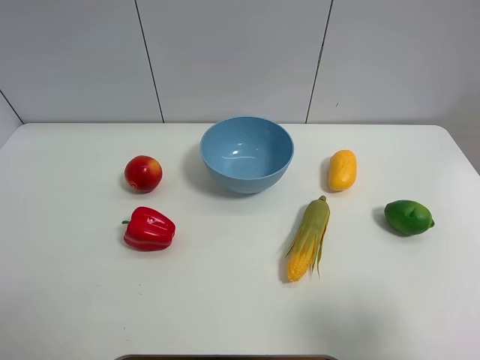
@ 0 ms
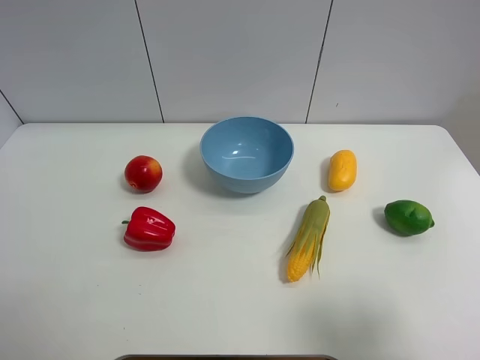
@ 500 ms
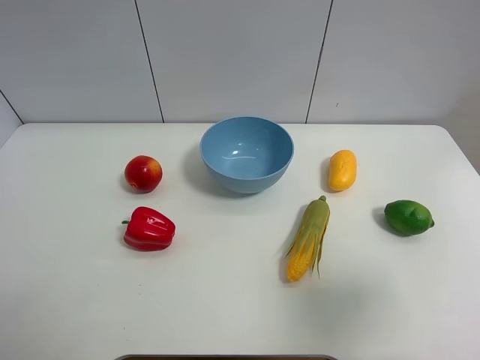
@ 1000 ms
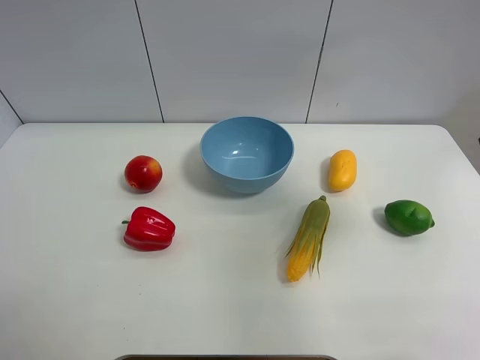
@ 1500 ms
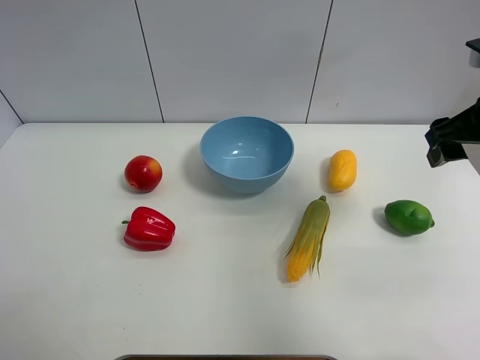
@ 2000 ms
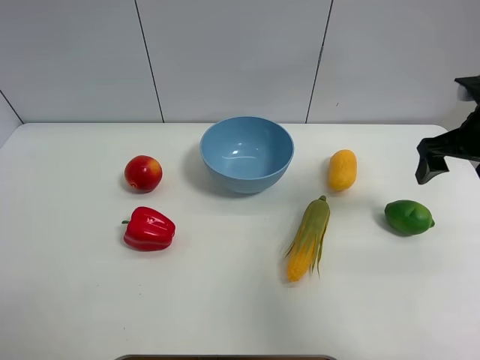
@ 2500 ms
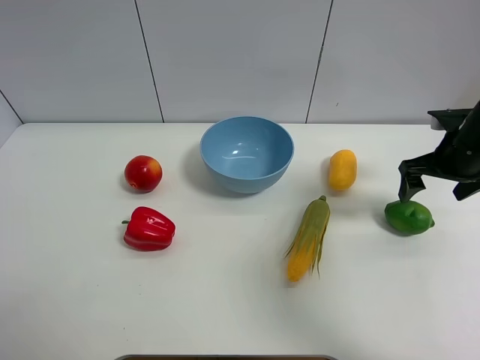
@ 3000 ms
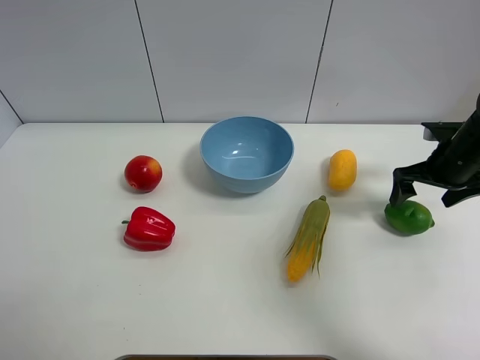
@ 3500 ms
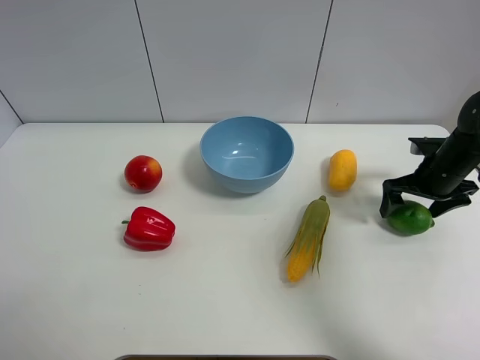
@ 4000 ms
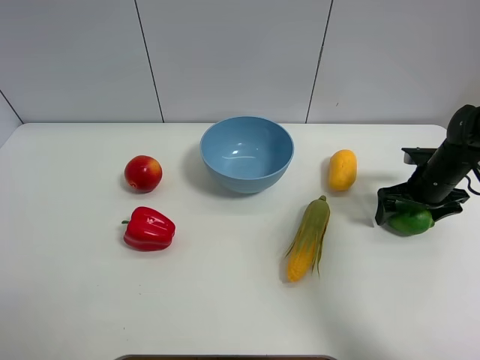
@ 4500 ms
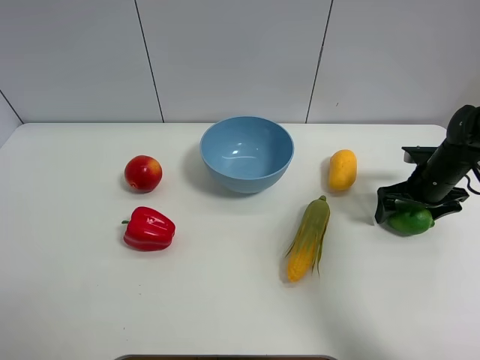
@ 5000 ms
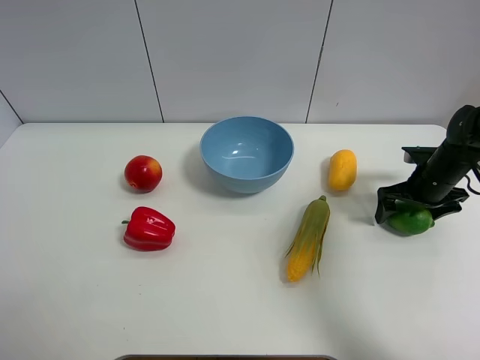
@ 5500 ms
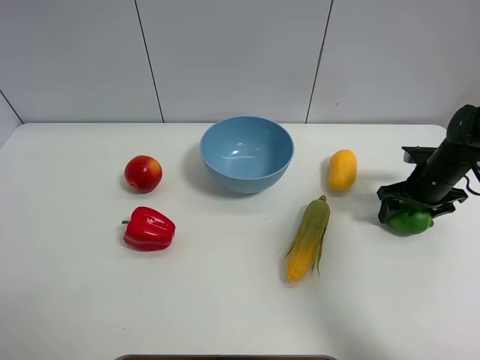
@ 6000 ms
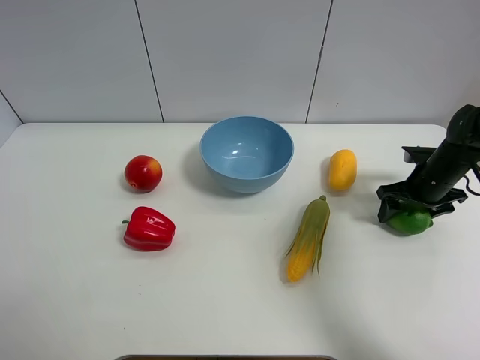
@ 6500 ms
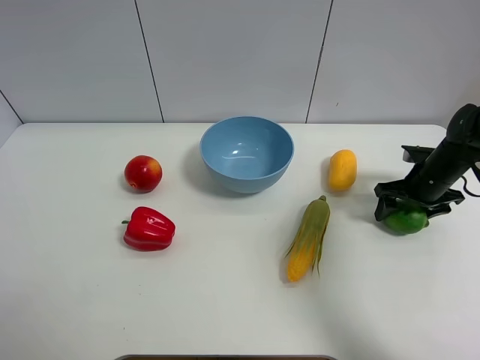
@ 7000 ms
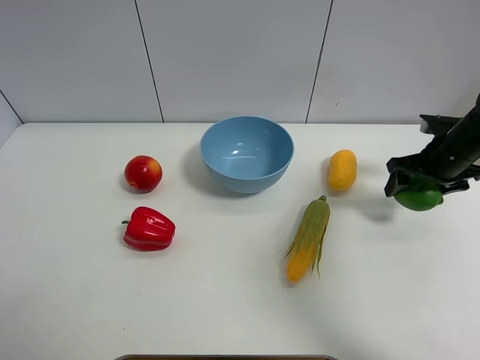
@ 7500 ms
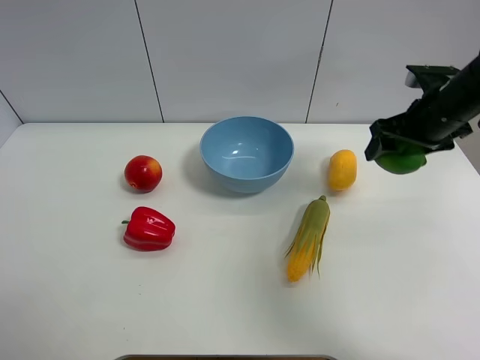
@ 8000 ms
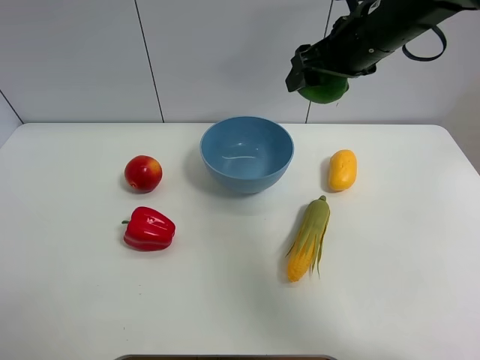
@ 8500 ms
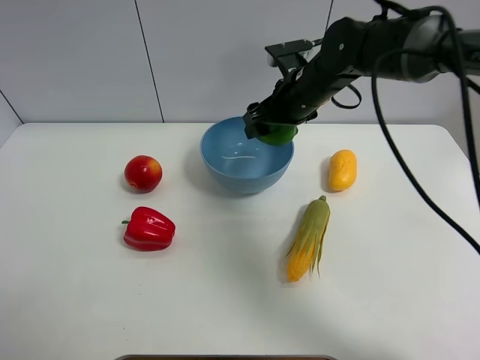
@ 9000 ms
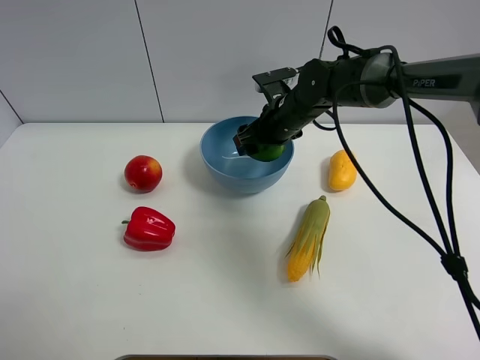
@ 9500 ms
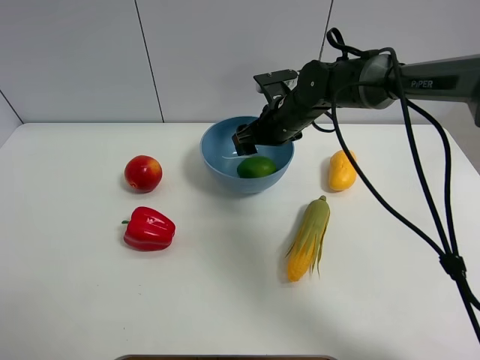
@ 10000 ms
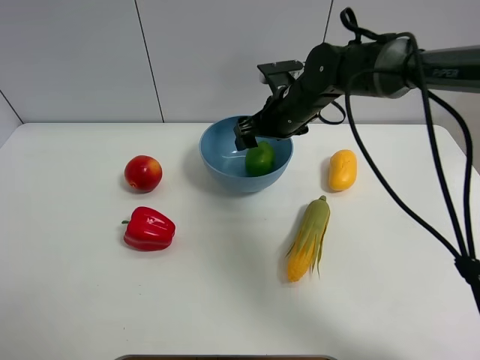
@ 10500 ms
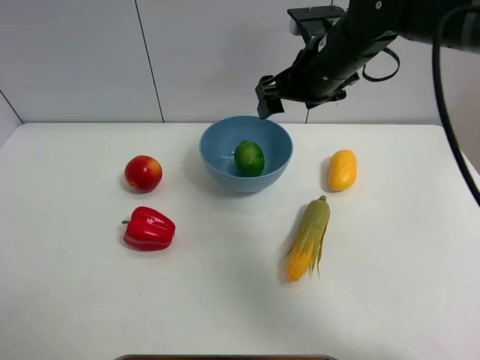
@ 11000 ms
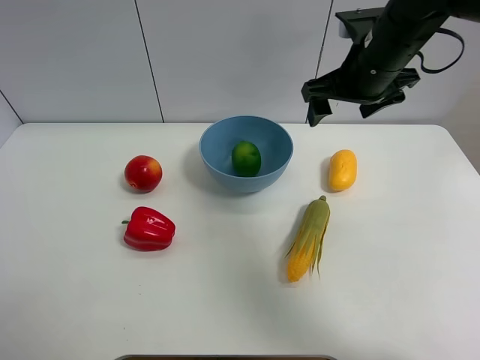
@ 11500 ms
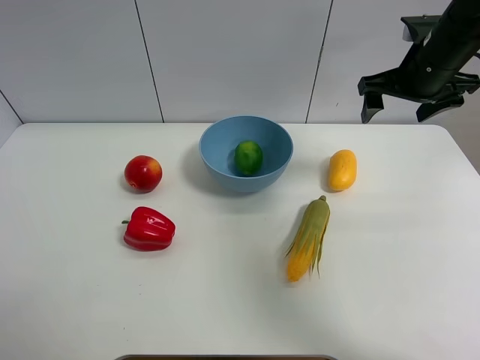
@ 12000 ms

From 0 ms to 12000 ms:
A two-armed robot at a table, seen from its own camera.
Task of the whole recording: Put the three fruits on the table into a bowl.
Step, from 0 ms to 6000 ms: Grasp the green lemon with right gripper.
Step, from 6500 ms to 10000 ms: Place the green lemon in the blue bowl with right gripper.
From 0 ms to 2000 ms: The right gripper moves forward, approximately 25 cm.
From 2000 ms to 4000 ms: The right gripper heads downward and forward, covering approximately 20 cm, and opens its fingers.
From 4000 ms to 6000 ms: The right gripper closes up.
From 6000 ms to 8000 ms: The right gripper heads upward and to the left, covering roughly 15 cm.
From 8000 ms to 10000 ms: The right gripper shifts approximately 20 cm to the left.
From 10000 ms to 12000 ms: The right gripper travels to the right and upward by some 20 cm.

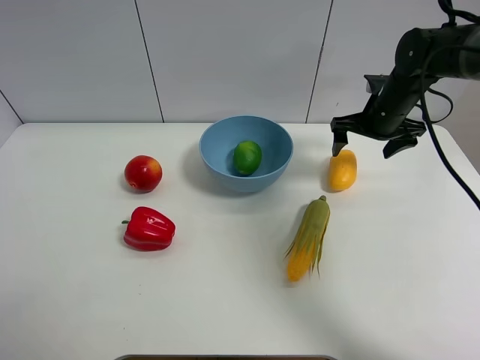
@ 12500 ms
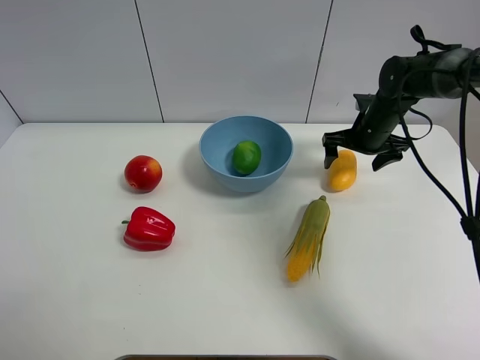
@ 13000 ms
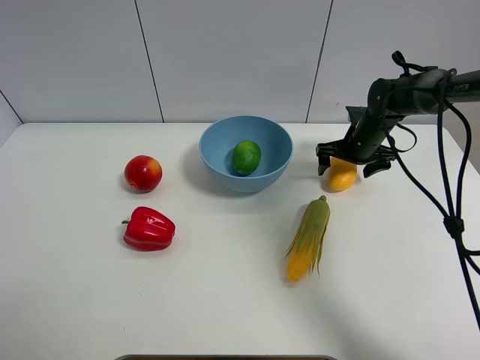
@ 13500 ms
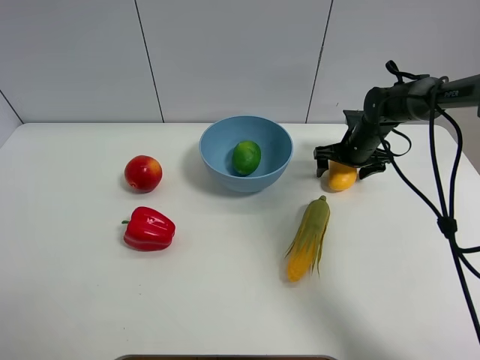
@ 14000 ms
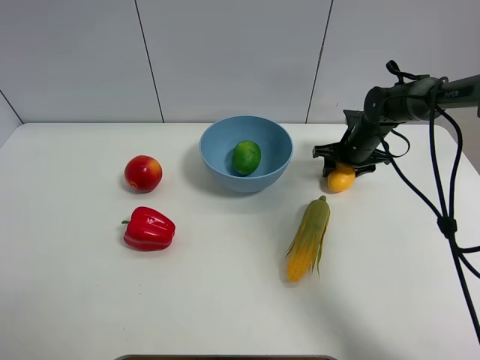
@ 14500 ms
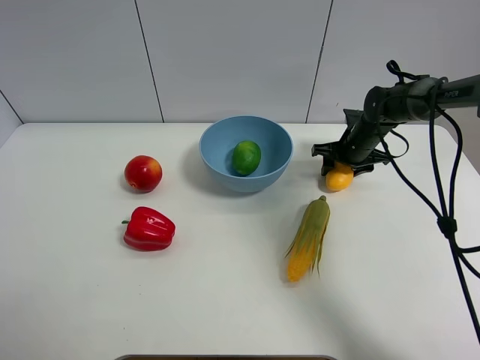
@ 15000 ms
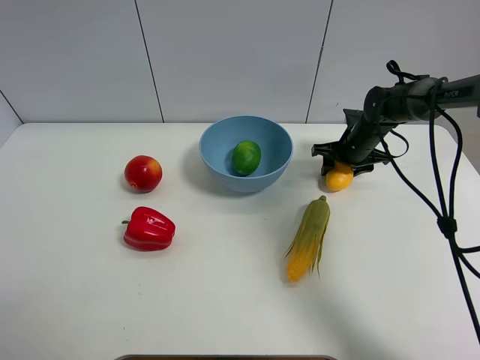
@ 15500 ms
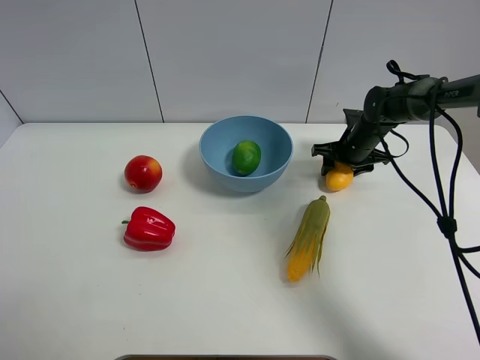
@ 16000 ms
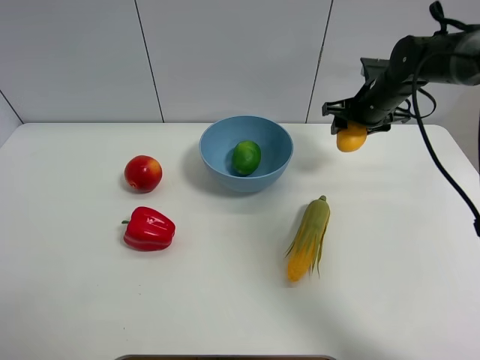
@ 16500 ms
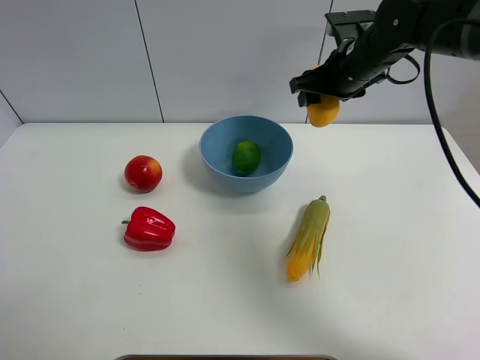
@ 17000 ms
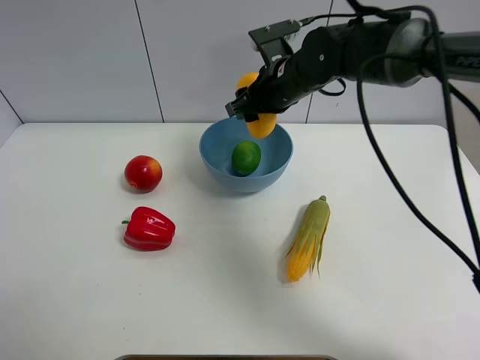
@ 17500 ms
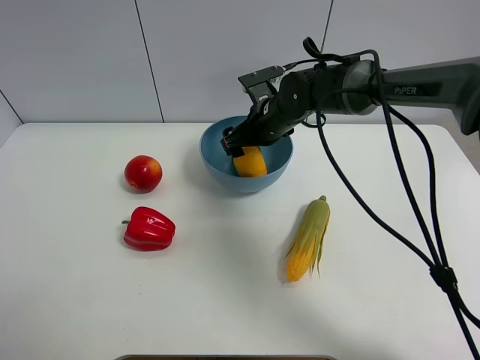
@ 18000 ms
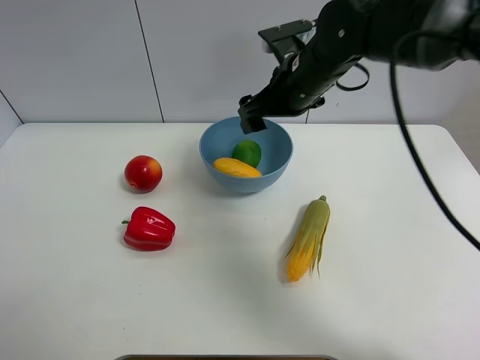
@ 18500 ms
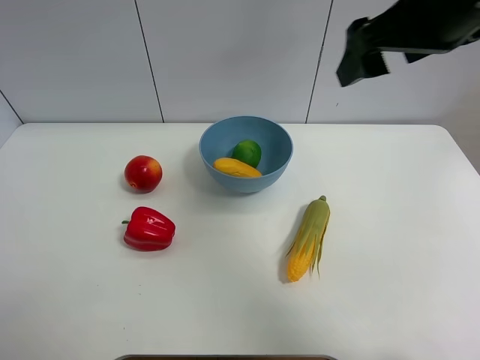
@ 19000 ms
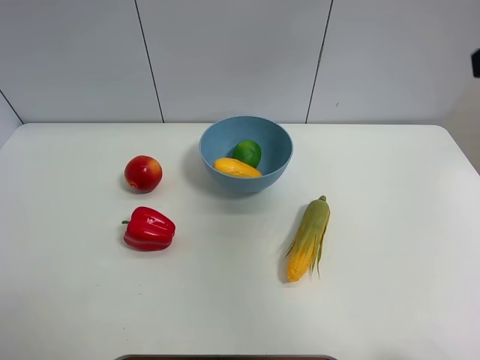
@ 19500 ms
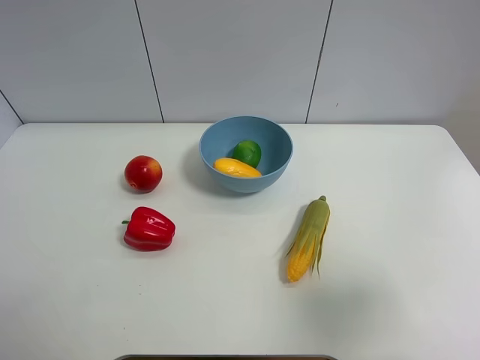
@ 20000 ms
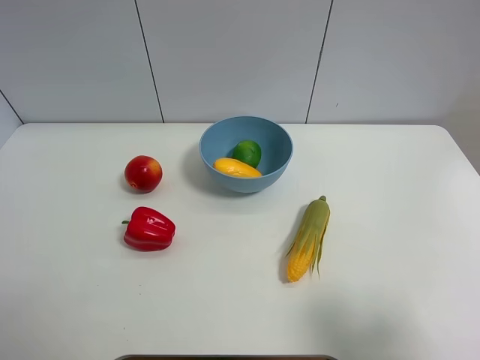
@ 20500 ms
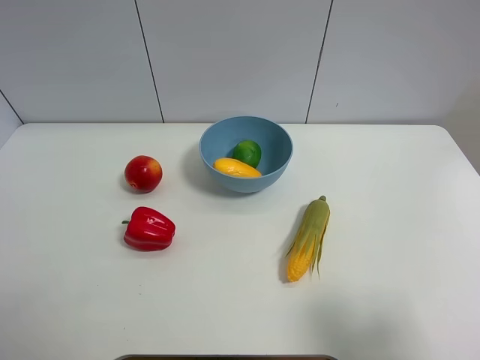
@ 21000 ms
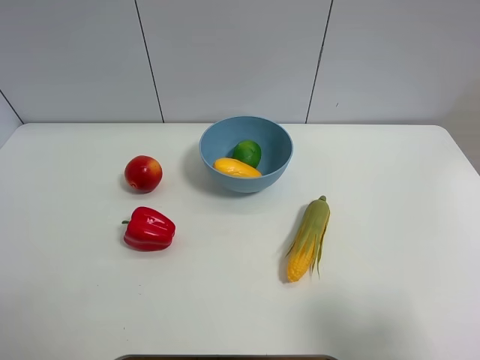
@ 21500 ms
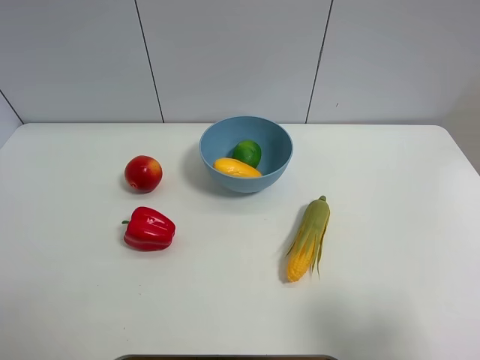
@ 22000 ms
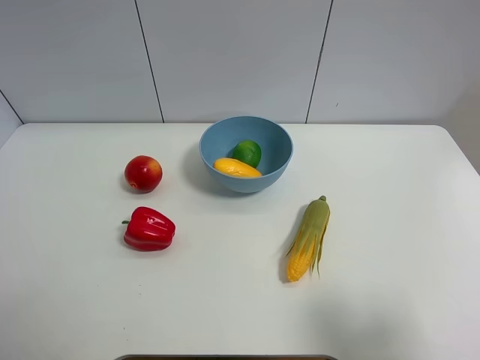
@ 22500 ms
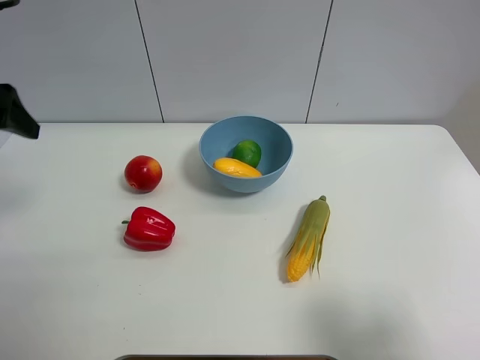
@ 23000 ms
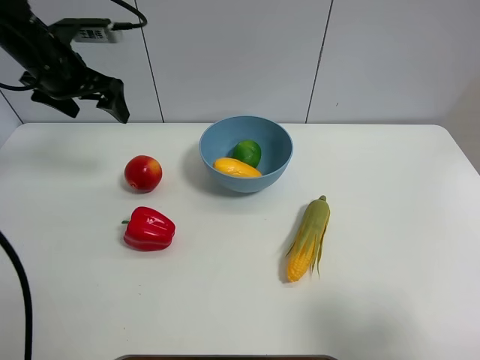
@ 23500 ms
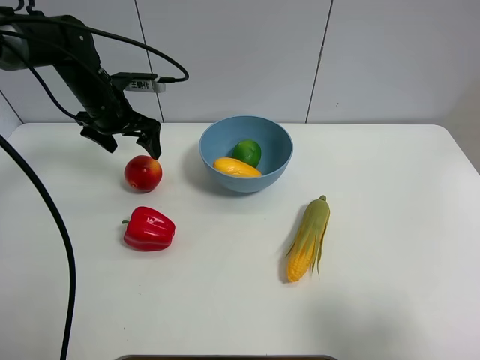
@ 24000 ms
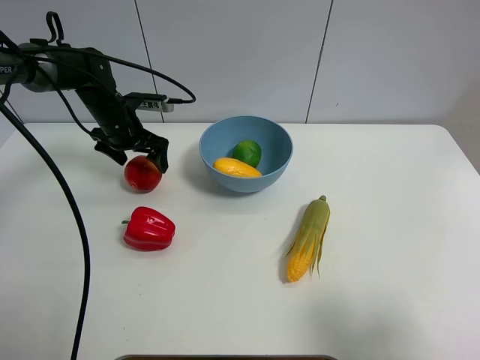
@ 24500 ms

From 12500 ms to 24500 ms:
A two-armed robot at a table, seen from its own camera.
Task of the whole recording: Put the three fruits on the table into a bowl.
Step, from 12500 ms to 14500 ms: Grasp the mango with right gripper.
Step, from 15000 ms to 18000 ms: Place the mango in the blue bowl with right gripper.
From 12500 ms to 14500 ms: The right gripper is displaced downward by approximately 10 cm, and closes its fingers.
From 14500 ms to 16500 ms: The right gripper travels upward by roughly 10 cm.
From 16500 ms to 18500 ms: The right gripper shifts about 20 cm to the left, backward and upward, and opens up.
From 18500 ms to 20500 ms: The right gripper travels backward and to the right by roughly 40 cm.
From 22500 ms to 24500 ms: The left gripper moves forward and downward, about 40 cm.

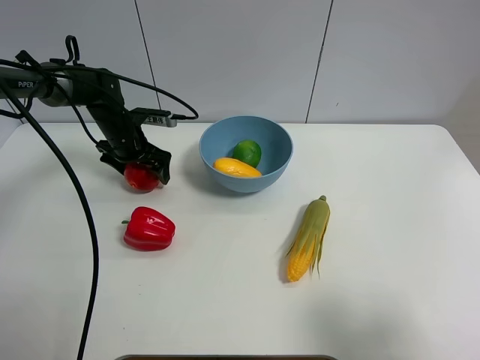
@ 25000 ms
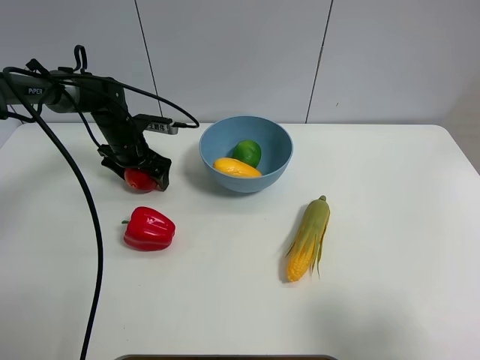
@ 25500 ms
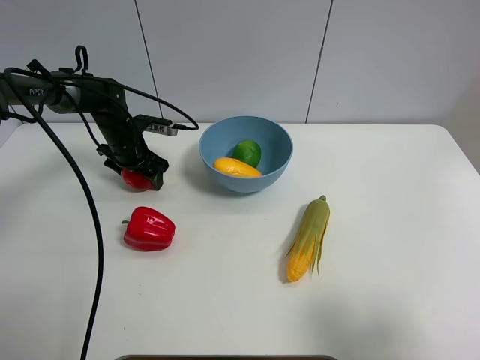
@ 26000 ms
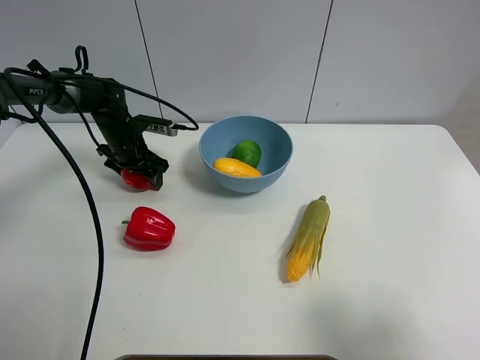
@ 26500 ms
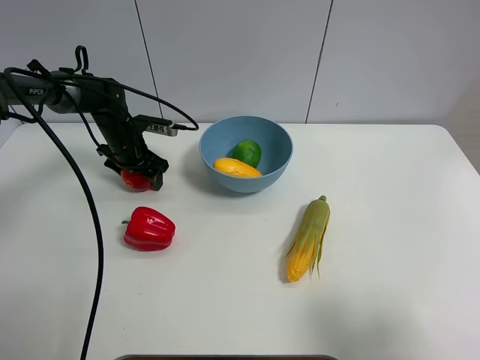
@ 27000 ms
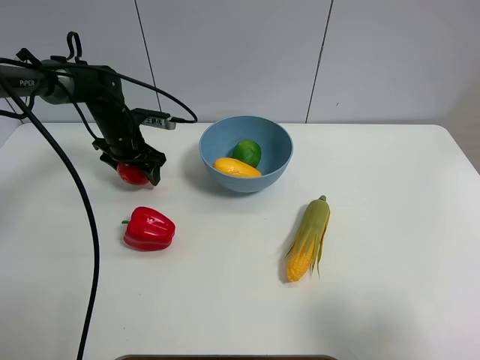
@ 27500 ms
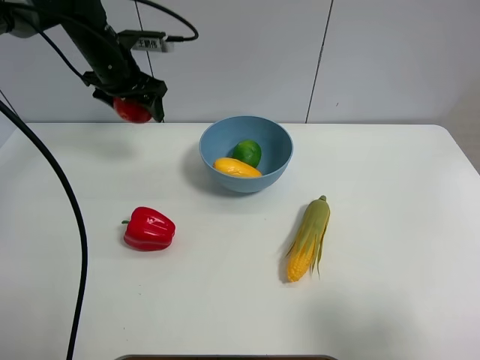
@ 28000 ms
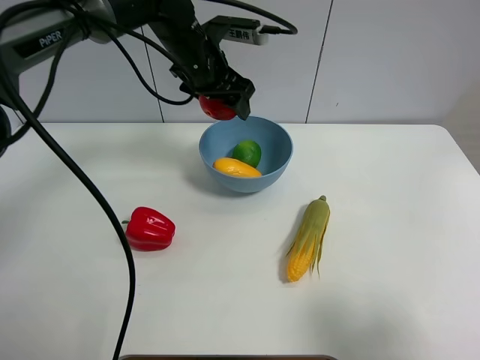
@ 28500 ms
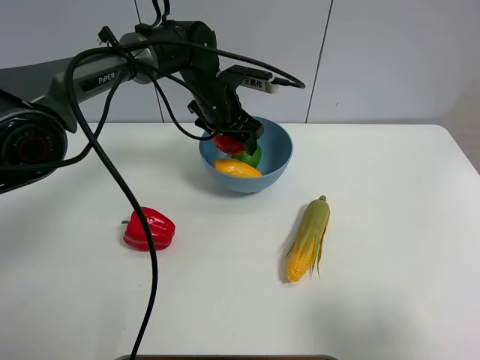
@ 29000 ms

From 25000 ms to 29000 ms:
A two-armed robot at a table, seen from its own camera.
Task of the whole recording: Put the three fruits on the table into a bowl.
From 25000 ms to 27000 ms: The left gripper closes up.
From 27000 ms to 29000 ms: The left gripper moves to the right and upward, approximately 20 cm.
